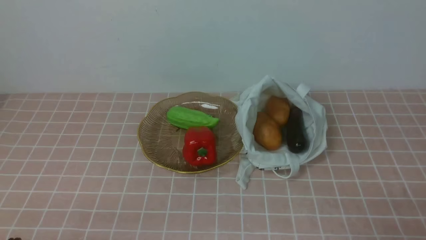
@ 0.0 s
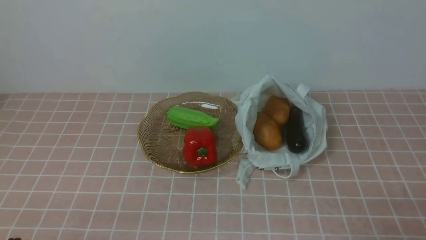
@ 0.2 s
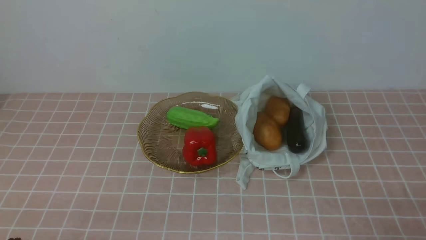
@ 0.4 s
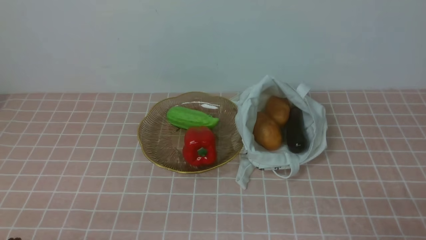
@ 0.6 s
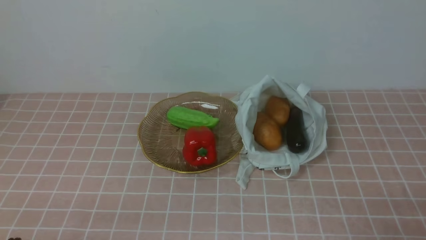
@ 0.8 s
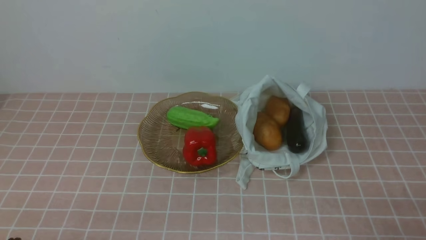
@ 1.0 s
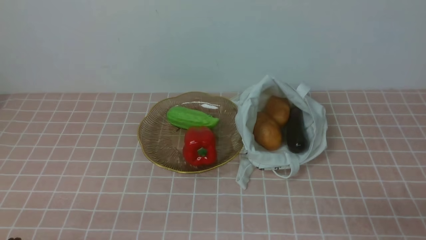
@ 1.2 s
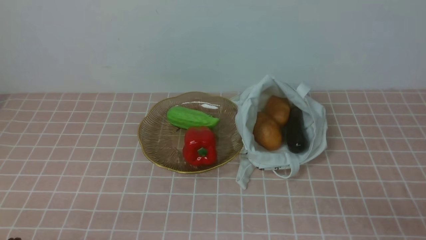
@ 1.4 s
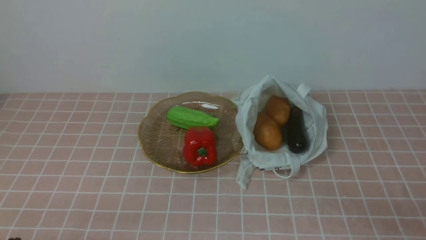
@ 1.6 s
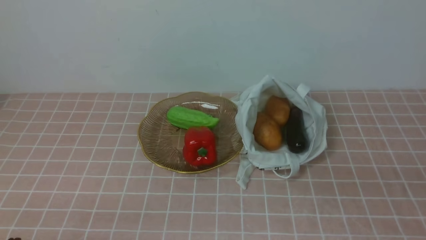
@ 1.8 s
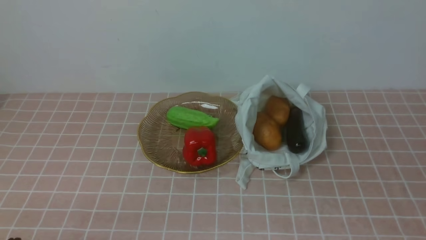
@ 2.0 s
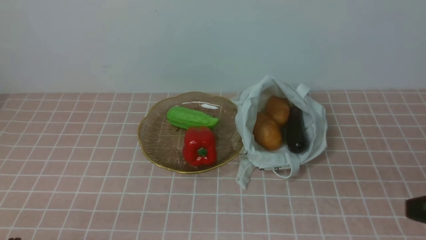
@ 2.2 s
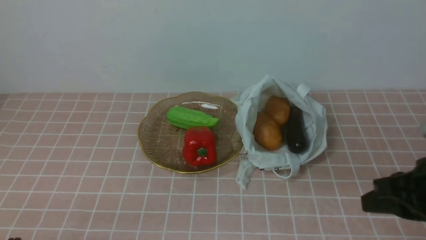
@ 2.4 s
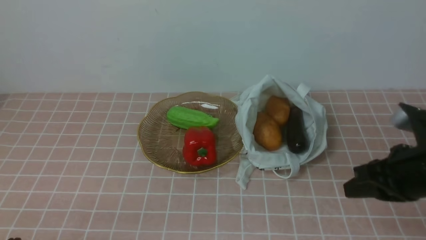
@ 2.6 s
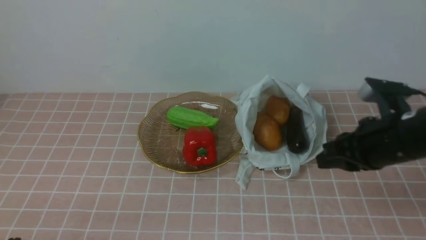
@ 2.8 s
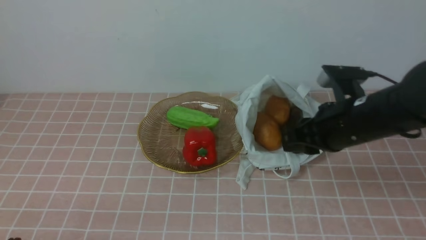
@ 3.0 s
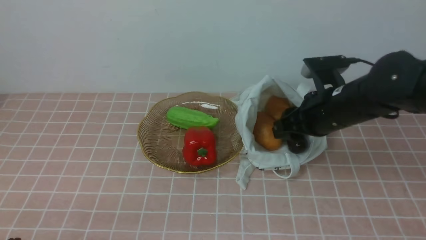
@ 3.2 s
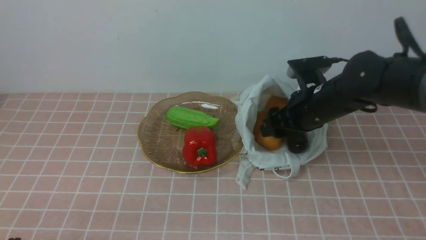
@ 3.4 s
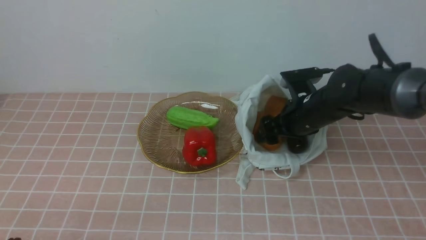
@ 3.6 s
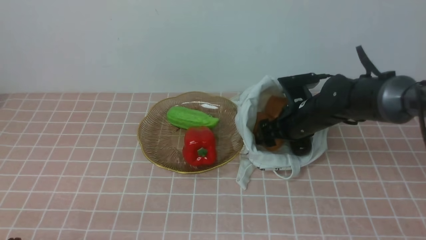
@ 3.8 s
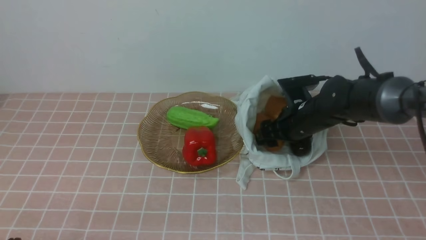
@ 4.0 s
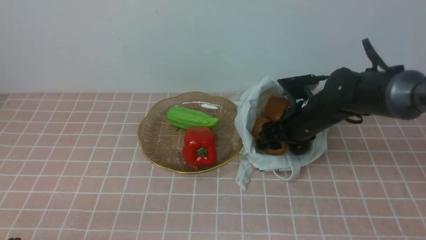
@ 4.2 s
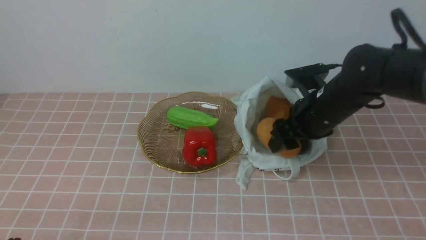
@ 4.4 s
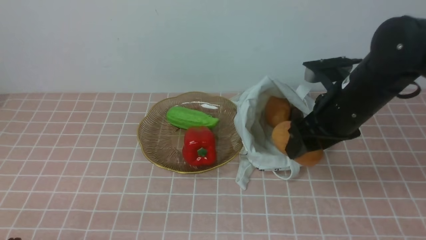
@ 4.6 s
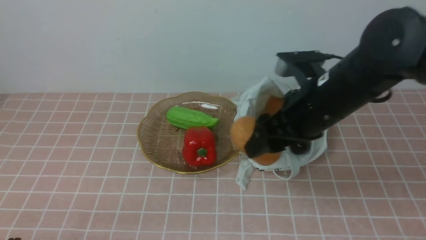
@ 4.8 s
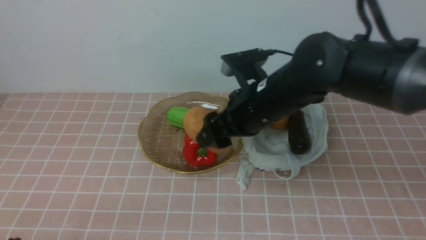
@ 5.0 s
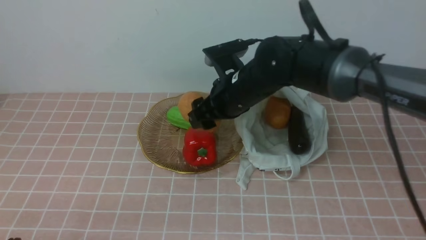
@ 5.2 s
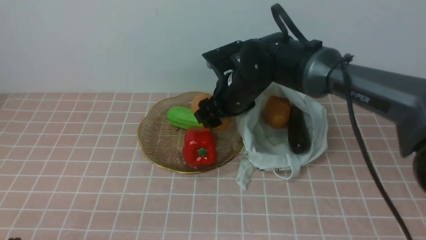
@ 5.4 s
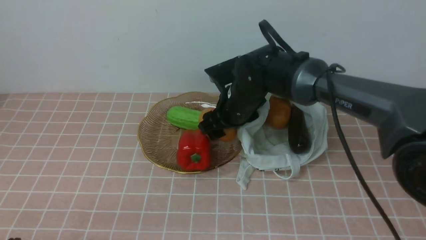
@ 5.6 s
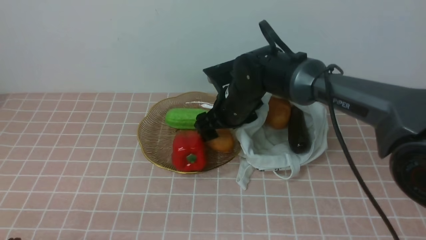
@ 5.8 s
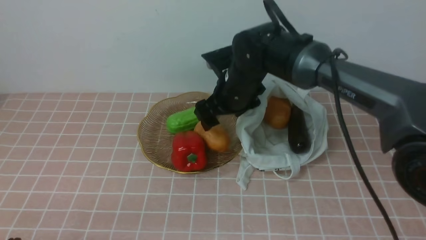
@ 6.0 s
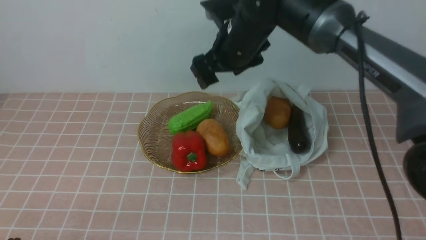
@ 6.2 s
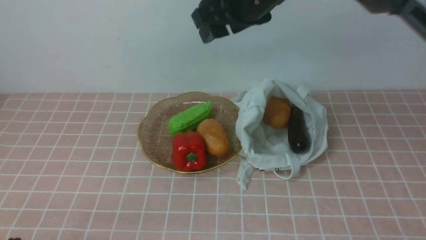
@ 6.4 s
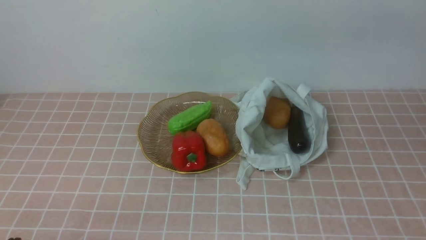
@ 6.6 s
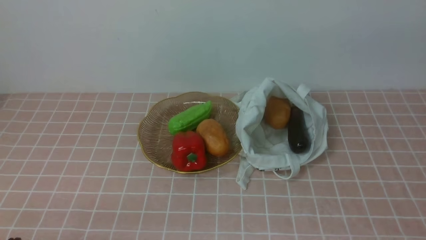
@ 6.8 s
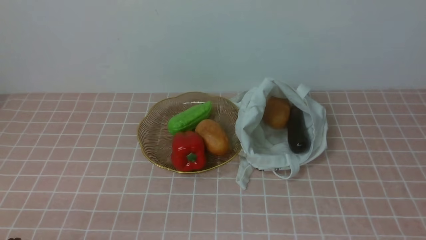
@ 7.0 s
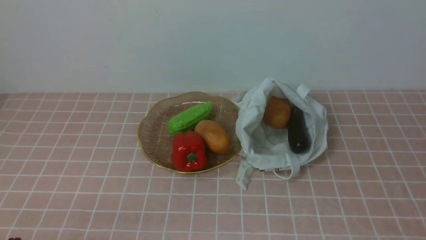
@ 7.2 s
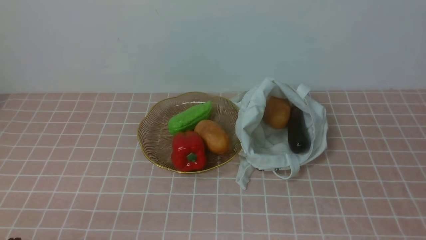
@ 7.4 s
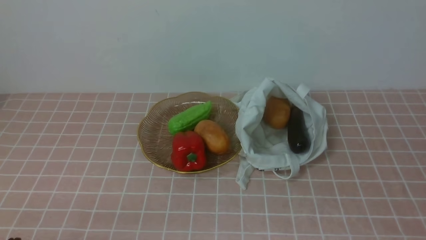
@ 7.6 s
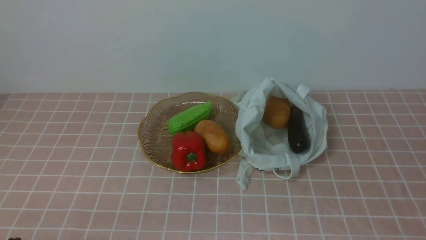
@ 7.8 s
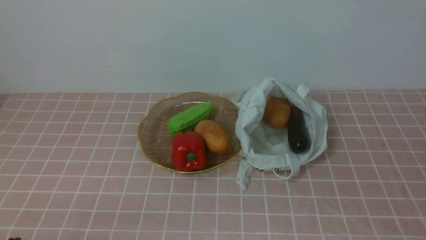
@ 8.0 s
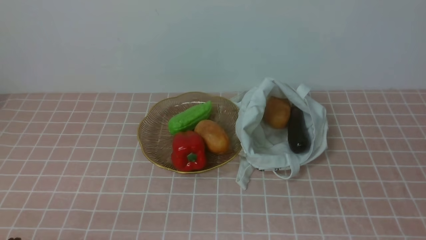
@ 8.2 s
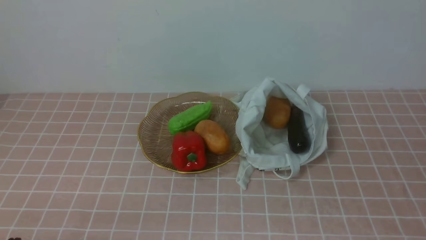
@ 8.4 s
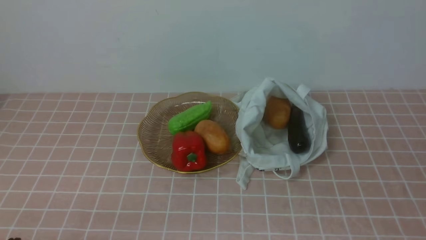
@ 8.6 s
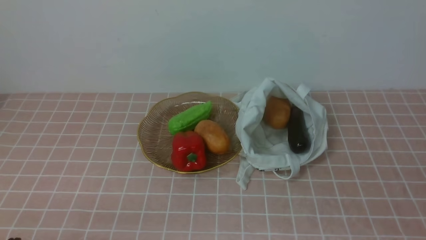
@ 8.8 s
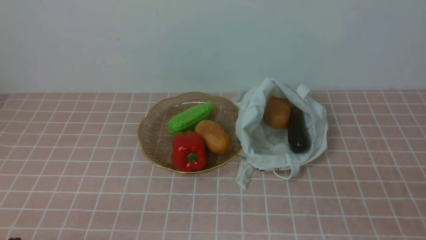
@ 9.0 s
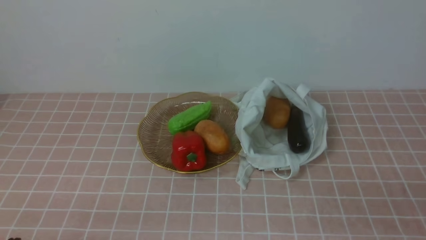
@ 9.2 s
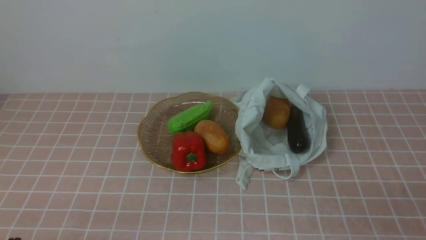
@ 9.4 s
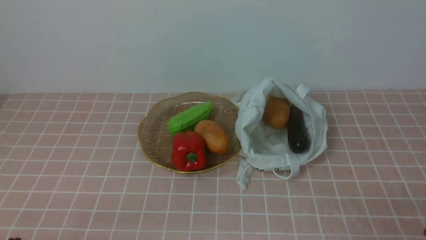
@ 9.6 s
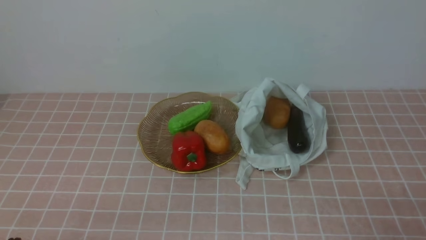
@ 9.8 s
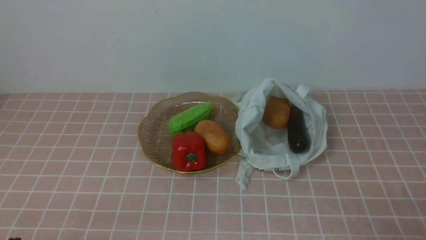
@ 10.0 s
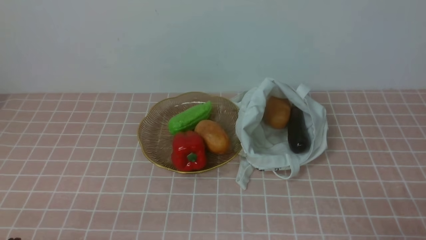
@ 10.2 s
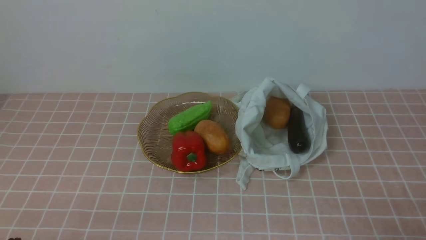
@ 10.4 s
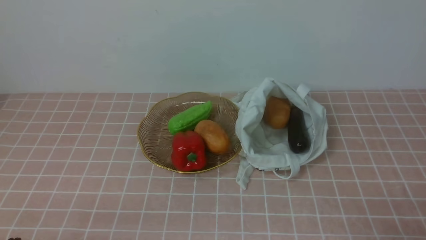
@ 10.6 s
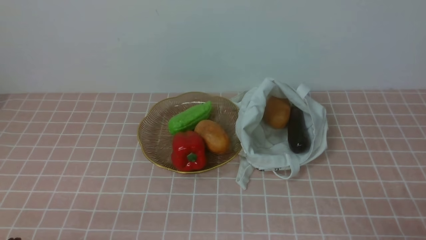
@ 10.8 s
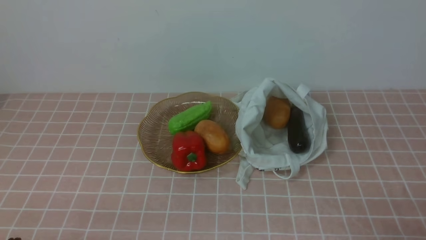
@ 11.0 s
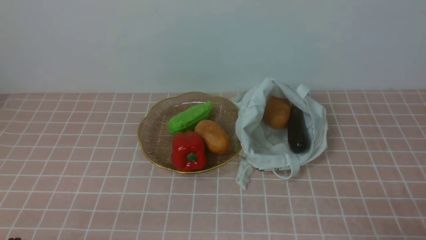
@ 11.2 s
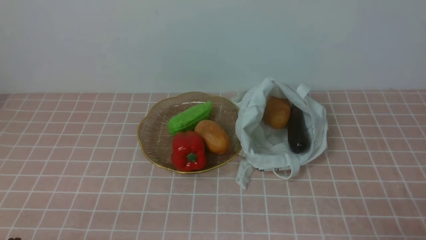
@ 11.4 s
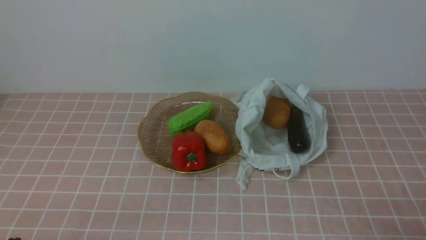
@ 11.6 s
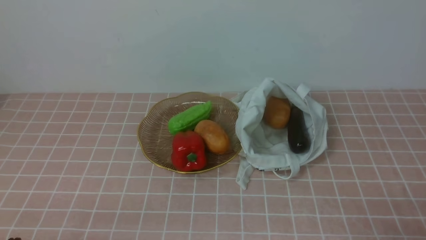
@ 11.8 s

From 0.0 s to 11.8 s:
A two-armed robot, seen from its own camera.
Task of the whole recording: take vegetables from bag on pink coffee tablecloth place on plate.
Step, from 0.0 s to 4.0 s: Grasp the potato with right gripper.
Step, from 4.2 s to 6.0 s: Place the potato on the plate with right gripper.
From 1.4 s to 3.0 s: The right gripper goes approximately 25 cm forward and to the left, and opens up.
From 3.0 s to 4.4 s: The right gripper opens its fingers.
From 4.4 s to 6.0 s: The right gripper heads to the left and forward, covering roughly 15 cm.
From 6.0 s to 7.4 s: The right gripper shifts about 50 cm backward and to the right, and closes up.
From 10.4 s to 11.8 s: Neither gripper changes place.
